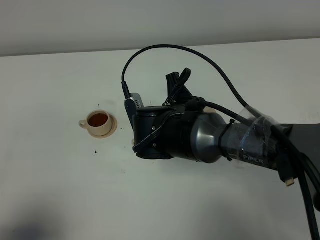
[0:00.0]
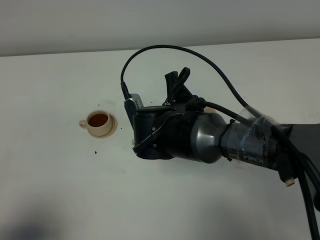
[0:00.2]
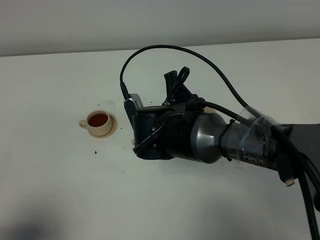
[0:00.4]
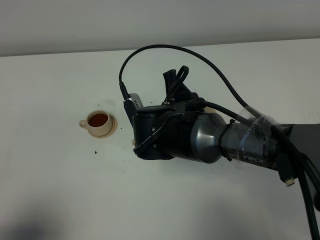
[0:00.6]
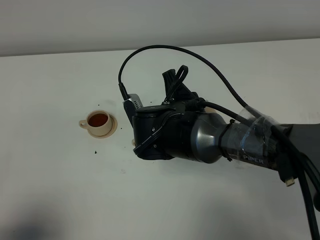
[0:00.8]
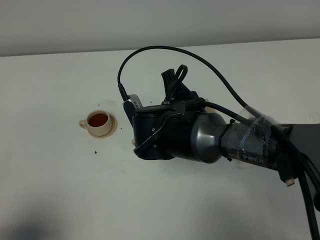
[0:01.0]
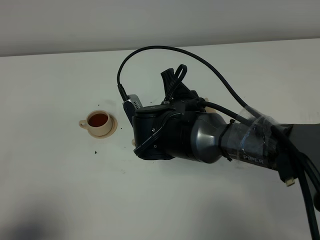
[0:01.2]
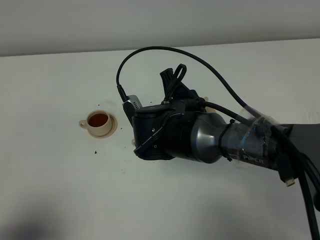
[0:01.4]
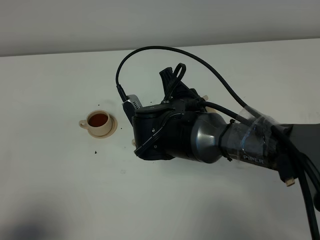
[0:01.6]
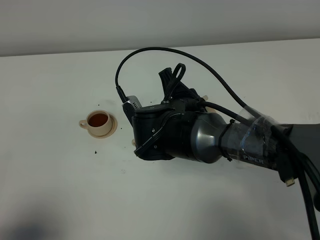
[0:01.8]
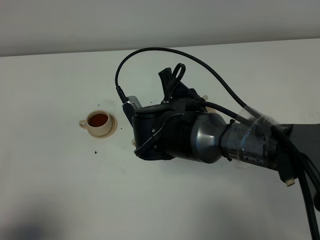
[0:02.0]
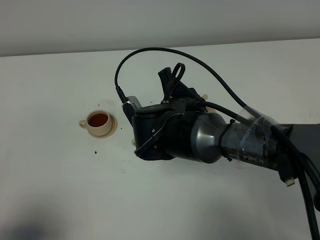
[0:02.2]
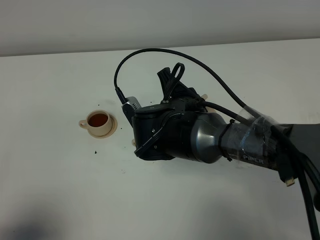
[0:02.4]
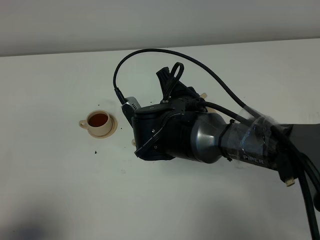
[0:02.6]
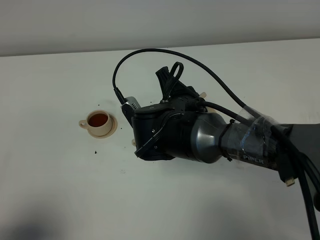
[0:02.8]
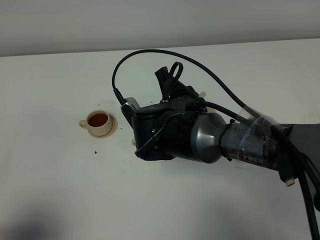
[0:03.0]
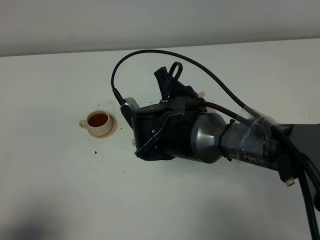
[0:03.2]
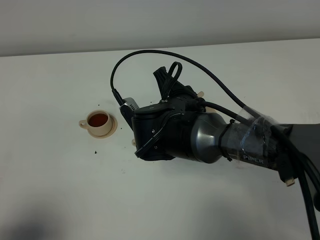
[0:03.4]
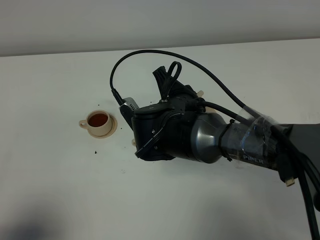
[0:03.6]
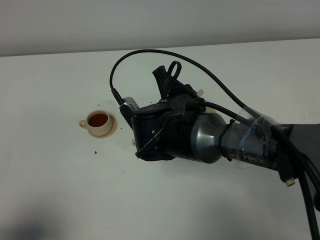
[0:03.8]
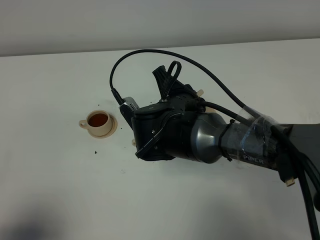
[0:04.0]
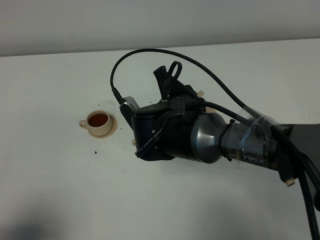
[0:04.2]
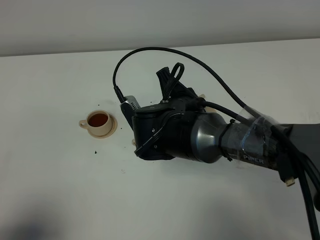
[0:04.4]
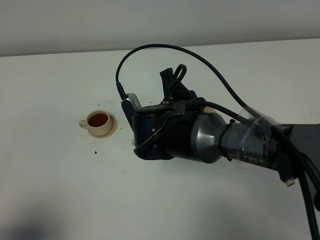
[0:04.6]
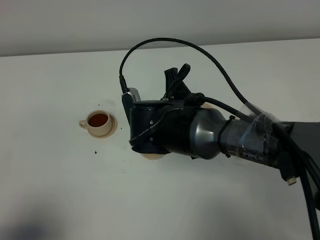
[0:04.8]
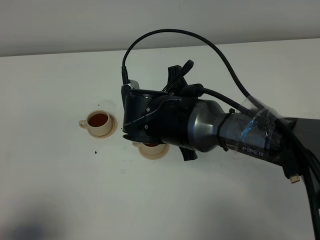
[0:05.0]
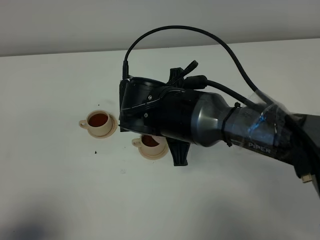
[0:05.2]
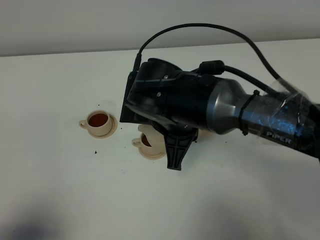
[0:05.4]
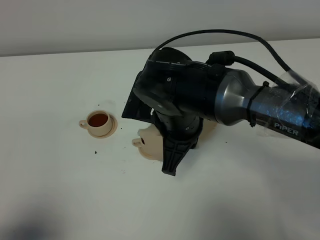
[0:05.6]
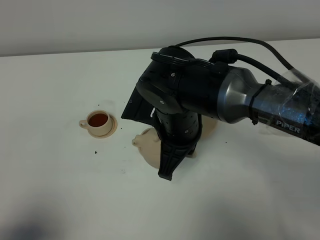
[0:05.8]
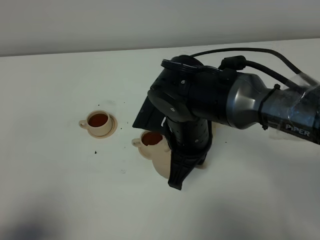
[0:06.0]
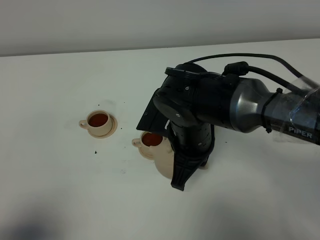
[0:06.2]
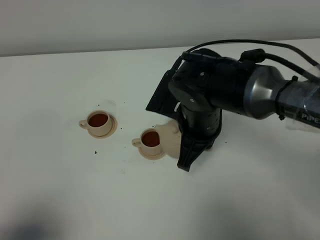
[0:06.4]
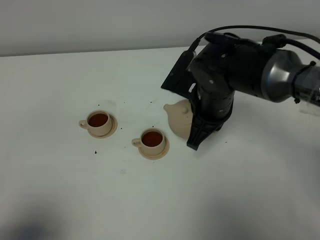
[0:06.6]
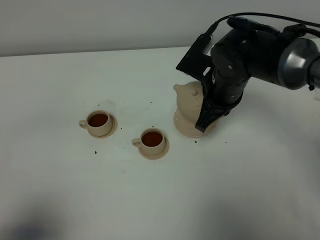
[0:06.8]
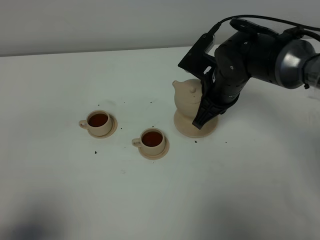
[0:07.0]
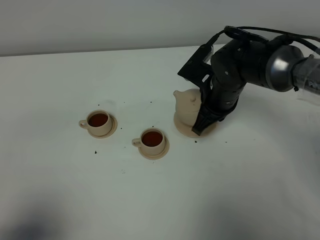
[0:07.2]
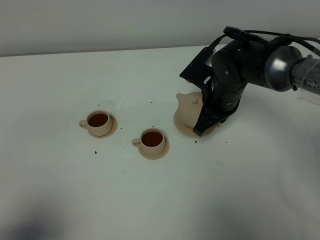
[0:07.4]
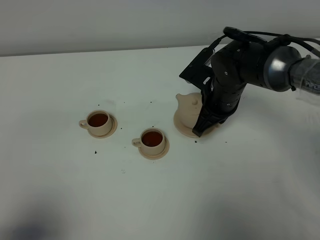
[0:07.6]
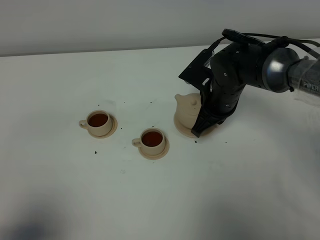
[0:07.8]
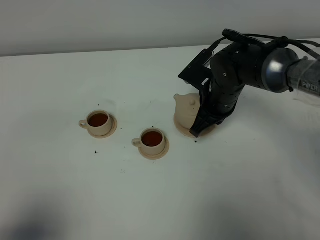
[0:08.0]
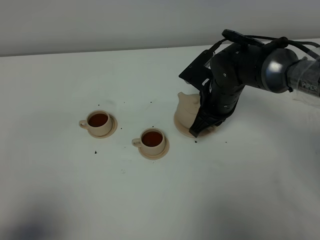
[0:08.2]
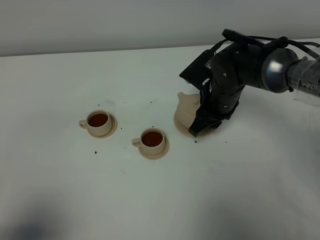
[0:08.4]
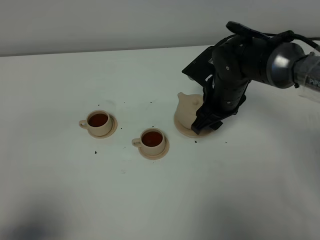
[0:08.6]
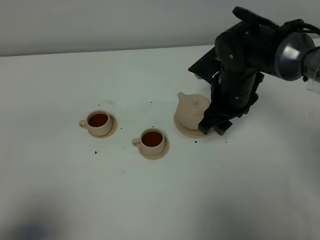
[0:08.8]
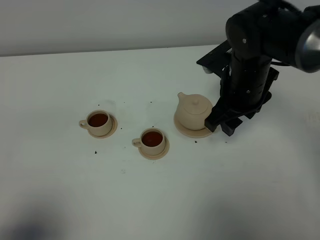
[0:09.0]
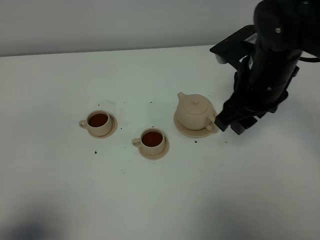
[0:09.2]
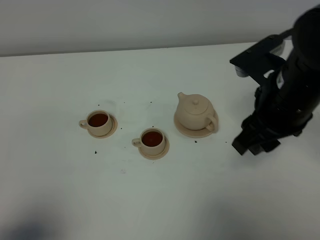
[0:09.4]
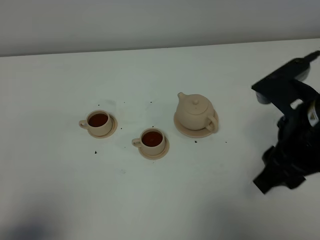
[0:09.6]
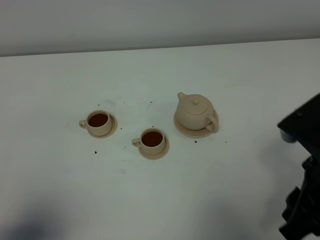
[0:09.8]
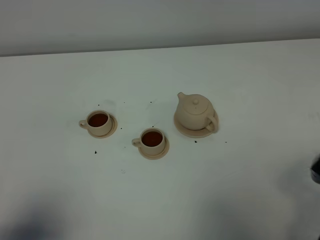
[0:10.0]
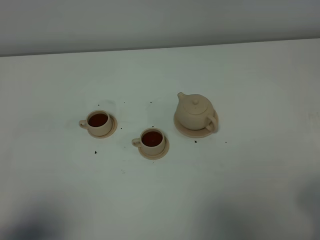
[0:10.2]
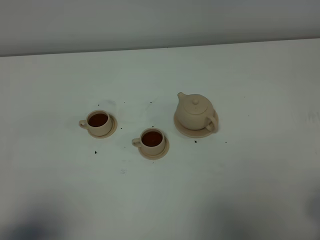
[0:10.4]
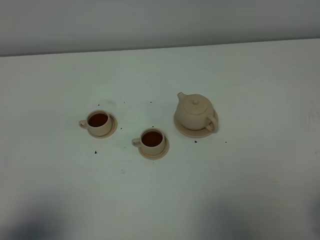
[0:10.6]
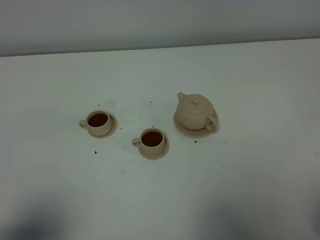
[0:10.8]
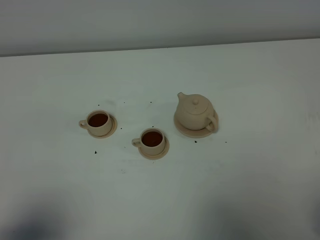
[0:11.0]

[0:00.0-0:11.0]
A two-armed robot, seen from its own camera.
Task of the whole recording: grasp the brown teapot and pour the tea into the two brown teacups one by one, put the brown teapot back in its original place.
Step, 0:00.0 to 0:05.0: Pour tea into the teacup with the right gripper.
0:00.0 to 0:04.8: The grippers stay close to where they were, moving slightly.
0:06.2 to 0:07.8: The right gripper goes roughly 15 cm forward and to the right.
0:07.8 to 0:09.4: The right gripper travels upward, backward and to the right by roughly 20 cm, and opens up.
0:09.4 to 0:11.0: The right gripper goes roughly 25 cm backward and to the right.

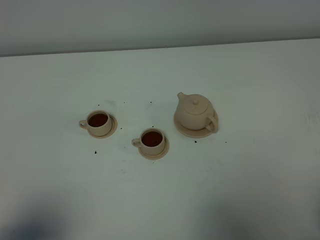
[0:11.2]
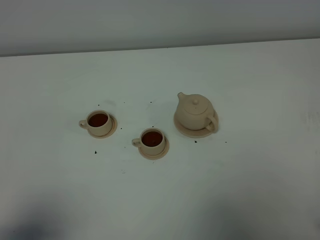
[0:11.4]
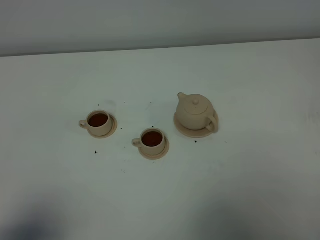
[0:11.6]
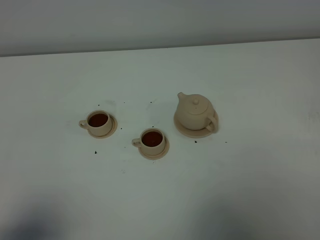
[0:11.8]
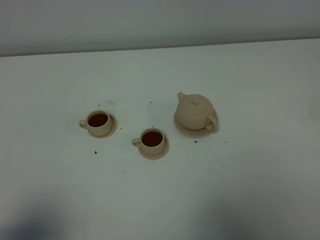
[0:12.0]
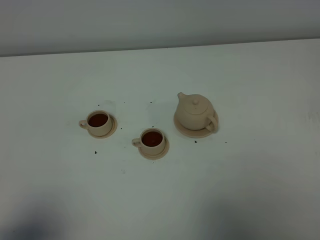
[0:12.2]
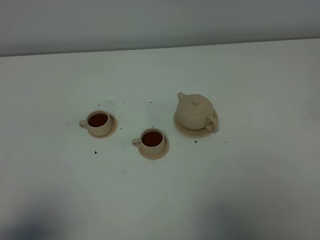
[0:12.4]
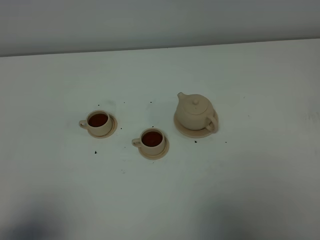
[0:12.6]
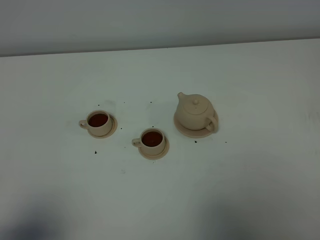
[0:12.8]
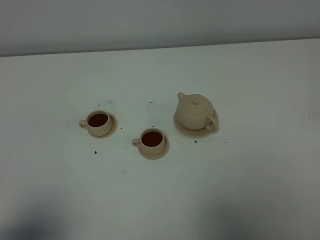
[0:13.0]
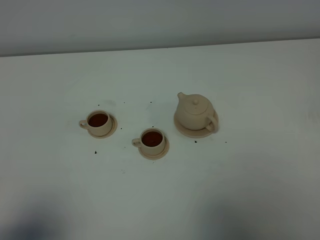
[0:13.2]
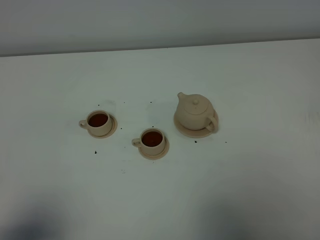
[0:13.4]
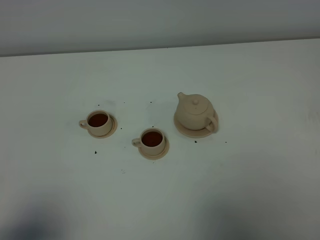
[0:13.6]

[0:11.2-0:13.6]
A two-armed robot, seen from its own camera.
Task of the whole recording: grasp the brown teapot and pour the tea into the two brown teacups one by one, put the brown teapot back in its original place.
0:12.4 to 0:13.6: The two grippers keep their place.

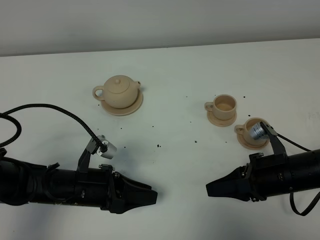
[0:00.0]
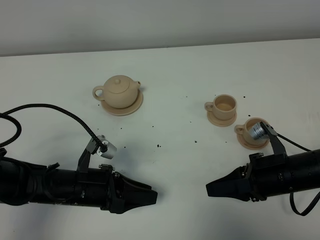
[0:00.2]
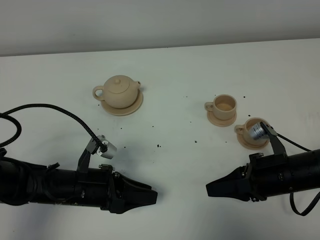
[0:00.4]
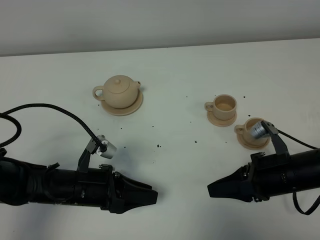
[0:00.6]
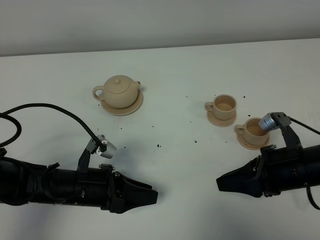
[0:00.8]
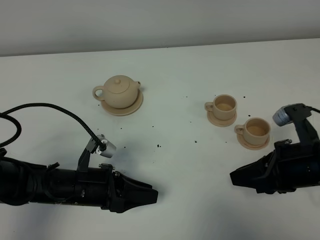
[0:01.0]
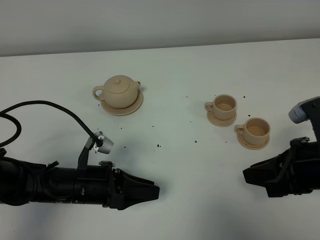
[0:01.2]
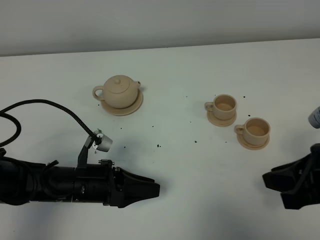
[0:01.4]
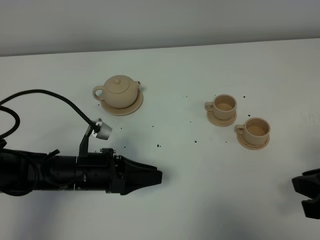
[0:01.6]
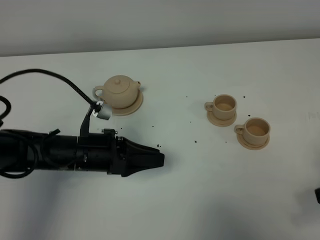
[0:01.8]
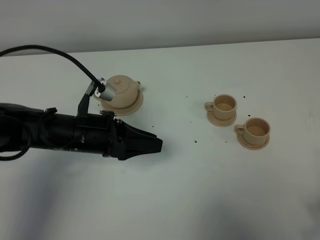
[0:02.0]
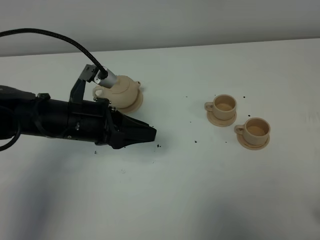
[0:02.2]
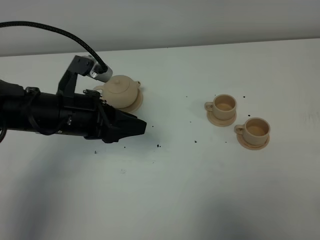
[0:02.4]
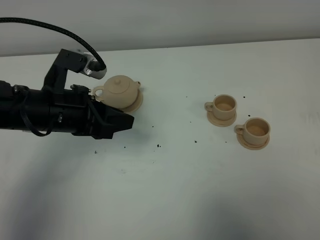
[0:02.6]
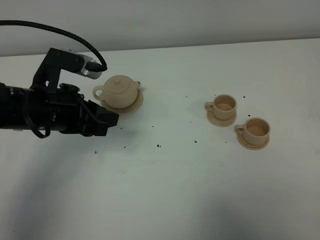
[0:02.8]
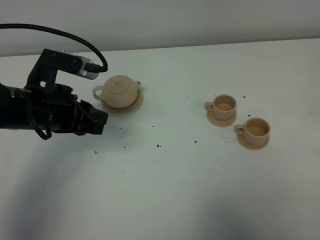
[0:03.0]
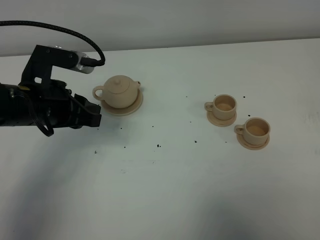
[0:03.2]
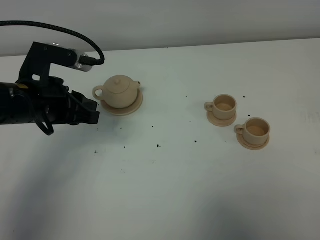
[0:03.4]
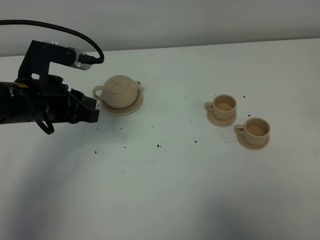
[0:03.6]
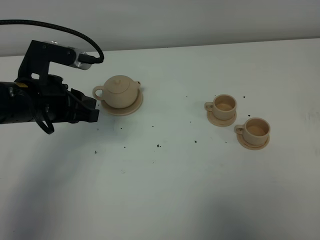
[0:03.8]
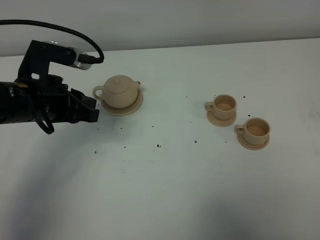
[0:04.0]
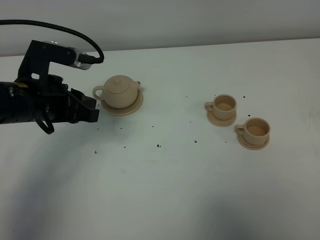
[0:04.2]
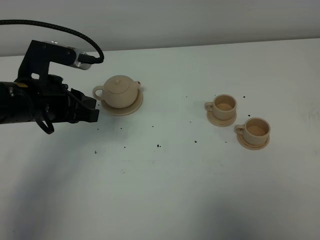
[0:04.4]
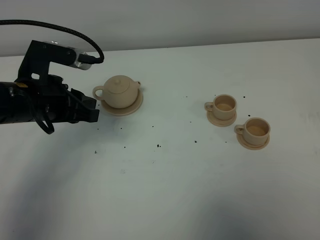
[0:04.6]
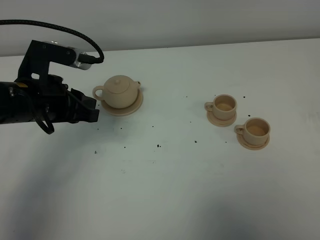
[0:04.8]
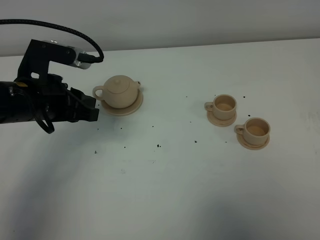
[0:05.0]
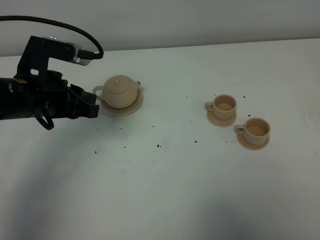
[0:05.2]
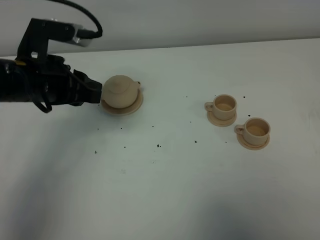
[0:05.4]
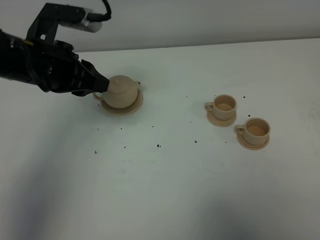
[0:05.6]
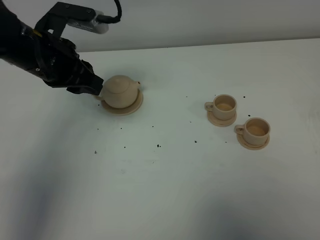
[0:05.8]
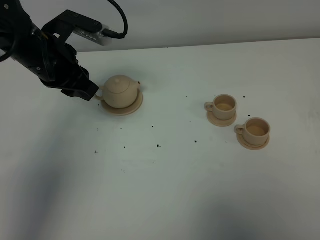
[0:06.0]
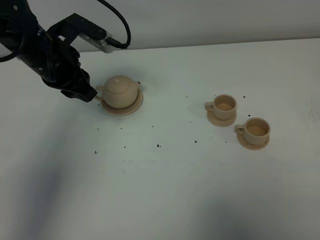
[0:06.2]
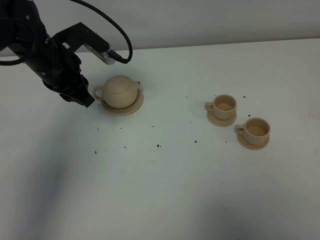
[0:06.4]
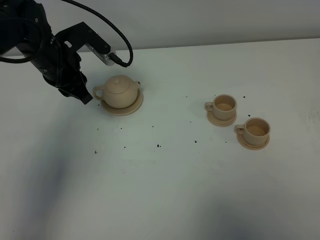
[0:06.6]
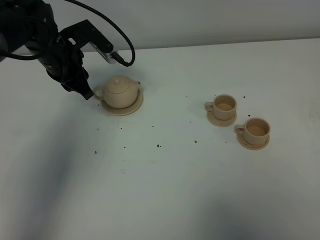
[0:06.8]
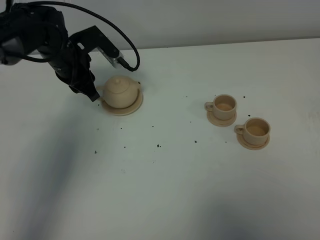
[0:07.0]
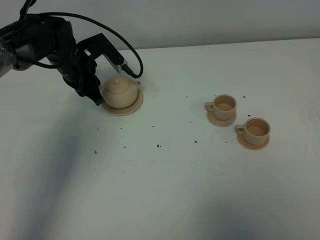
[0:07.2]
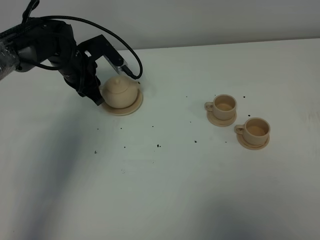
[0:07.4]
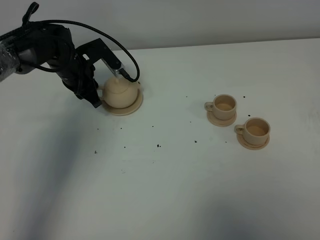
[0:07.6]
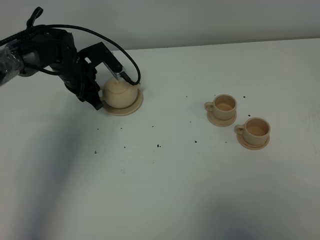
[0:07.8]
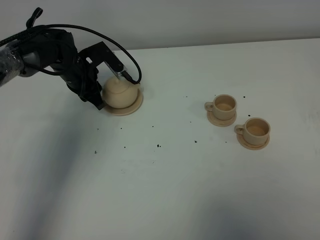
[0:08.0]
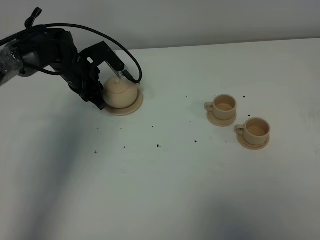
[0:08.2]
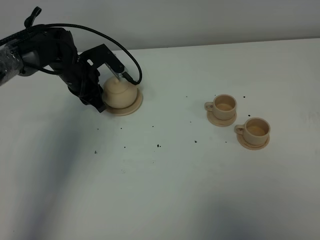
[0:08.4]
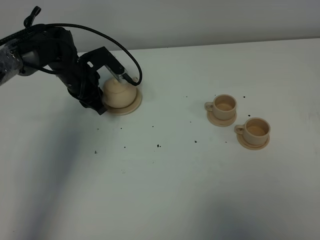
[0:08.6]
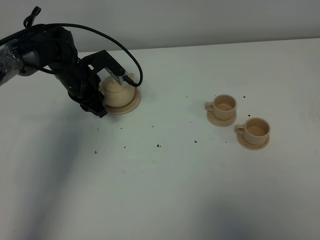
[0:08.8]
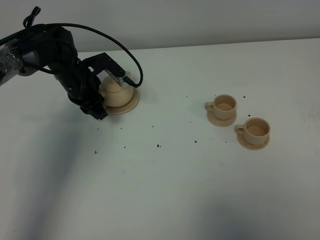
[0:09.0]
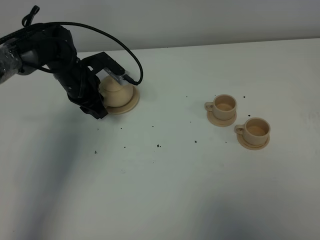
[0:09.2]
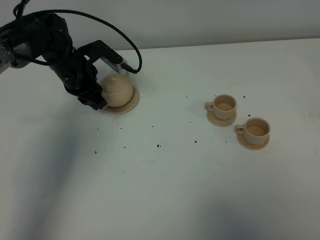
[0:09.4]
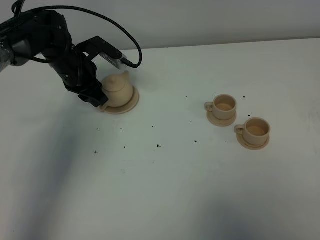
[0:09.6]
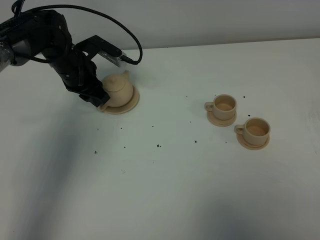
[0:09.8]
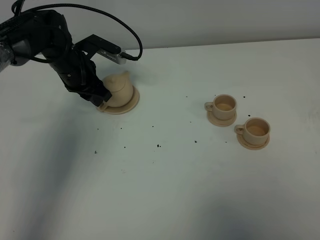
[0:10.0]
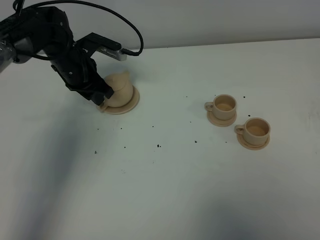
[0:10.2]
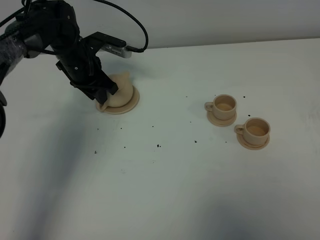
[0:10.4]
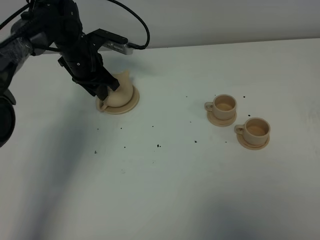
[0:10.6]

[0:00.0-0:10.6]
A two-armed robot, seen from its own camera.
Task of the whole recording: grasp the brown teapot and pour the tea into the two brown teacups one by one, put the brown teapot back in its original place.
0:00.0 to 0:01.6: The right gripper heads upward, backward and to the right, covering about 15 cm.
0:01.6 to 0:03.0: The right gripper shifts about 10 cm backward and to the right. The left gripper shifts about 10 cm upward.
0:03.0 to 0:04.6: There are only small adjustments of the grippers.
0:04.6 to 0:06.0: The left gripper heads forward, covering approximately 10 cm.
0:06.0 to 0:07.6: The left gripper is displaced downward and forward by approximately 15 cm.
0:07.6 to 0:09.0: There are only small adjustments of the grippers.
0:09.0 to 0:10.6: The left gripper shifts by about 5 cm.
